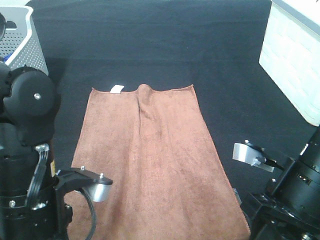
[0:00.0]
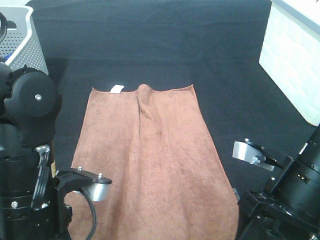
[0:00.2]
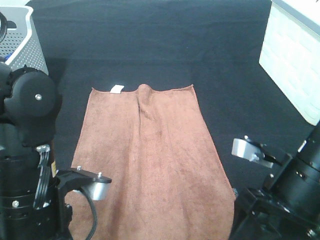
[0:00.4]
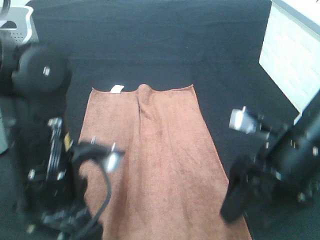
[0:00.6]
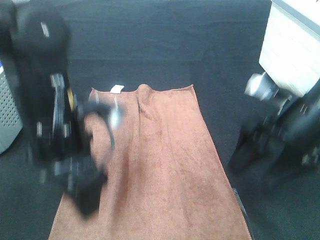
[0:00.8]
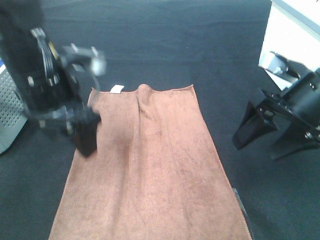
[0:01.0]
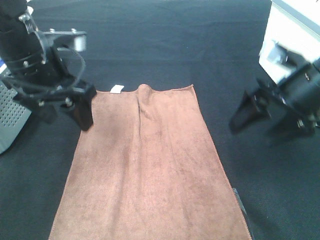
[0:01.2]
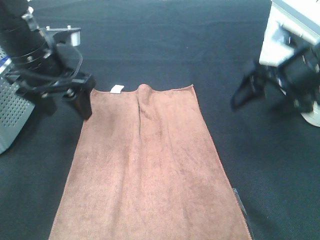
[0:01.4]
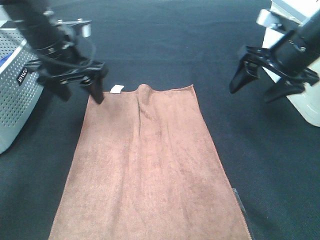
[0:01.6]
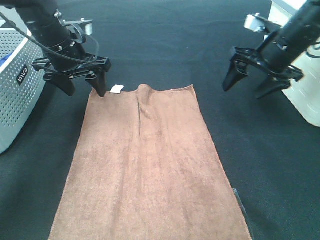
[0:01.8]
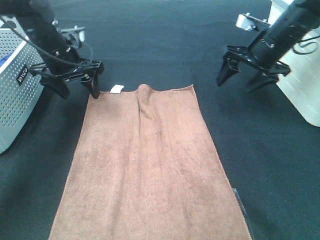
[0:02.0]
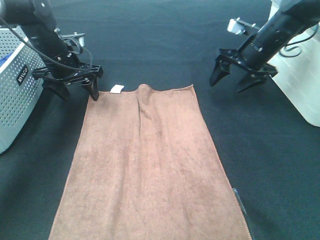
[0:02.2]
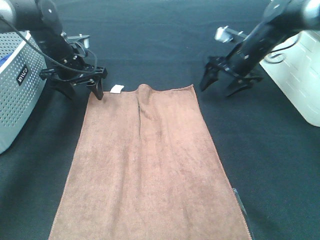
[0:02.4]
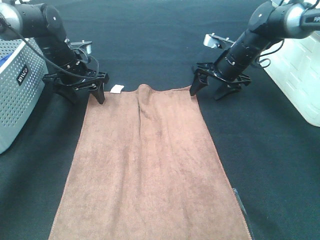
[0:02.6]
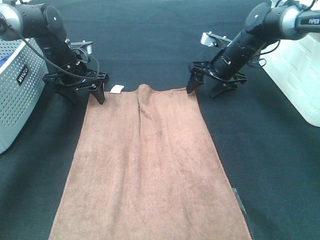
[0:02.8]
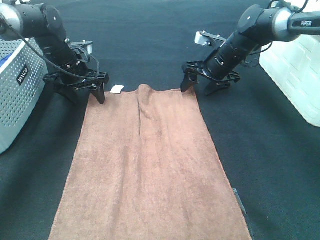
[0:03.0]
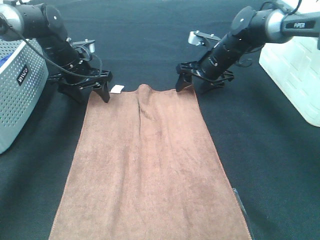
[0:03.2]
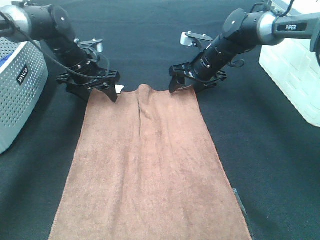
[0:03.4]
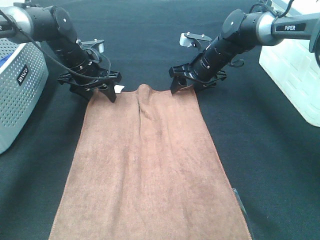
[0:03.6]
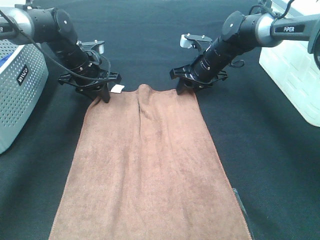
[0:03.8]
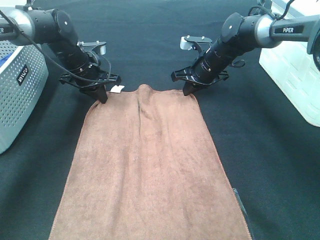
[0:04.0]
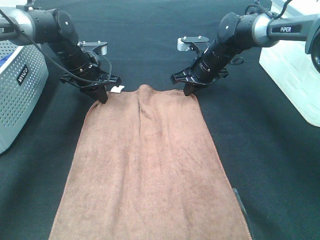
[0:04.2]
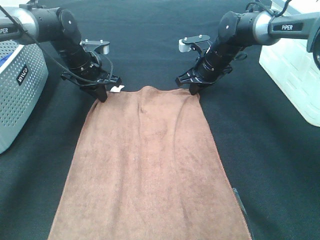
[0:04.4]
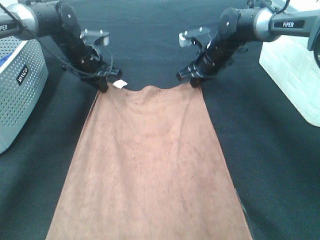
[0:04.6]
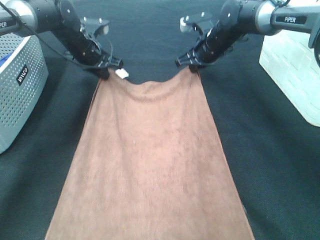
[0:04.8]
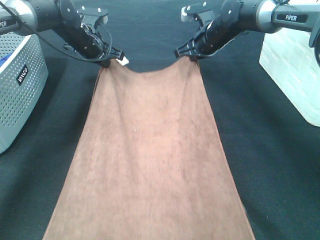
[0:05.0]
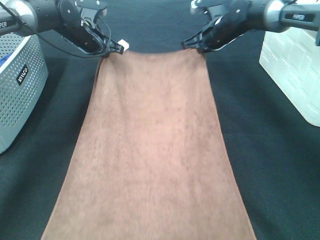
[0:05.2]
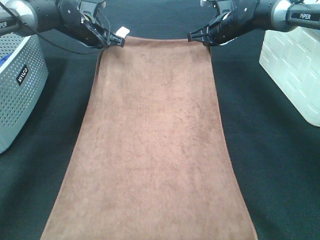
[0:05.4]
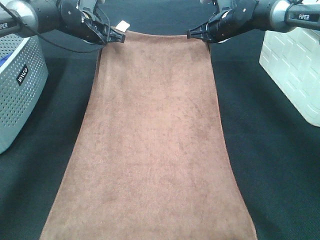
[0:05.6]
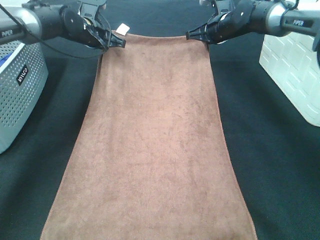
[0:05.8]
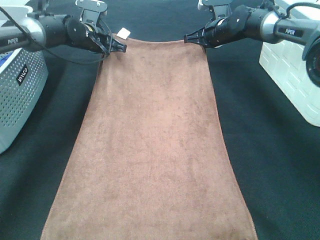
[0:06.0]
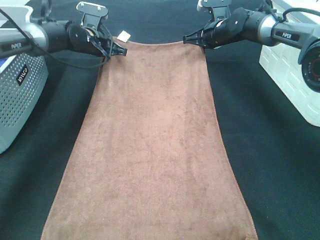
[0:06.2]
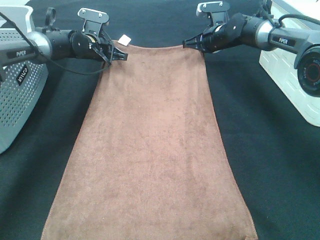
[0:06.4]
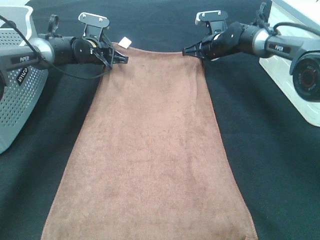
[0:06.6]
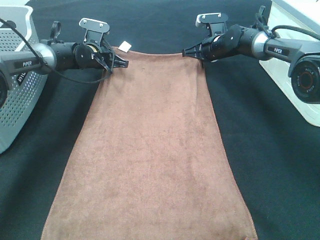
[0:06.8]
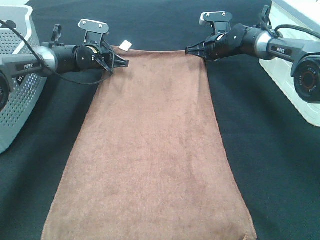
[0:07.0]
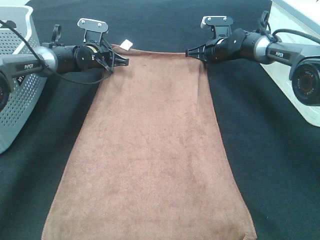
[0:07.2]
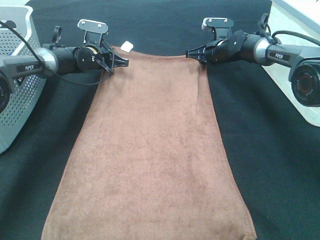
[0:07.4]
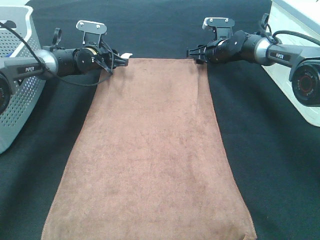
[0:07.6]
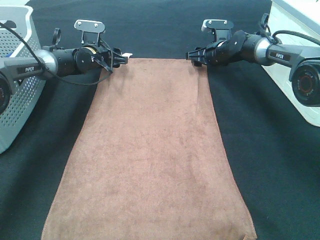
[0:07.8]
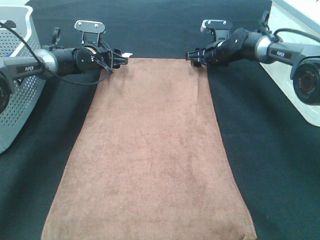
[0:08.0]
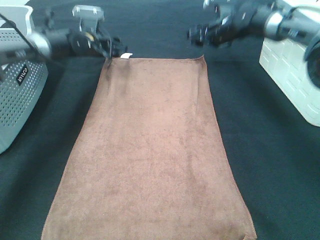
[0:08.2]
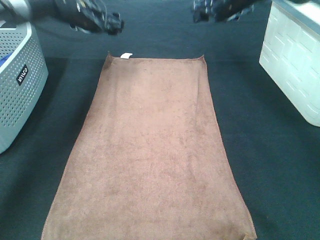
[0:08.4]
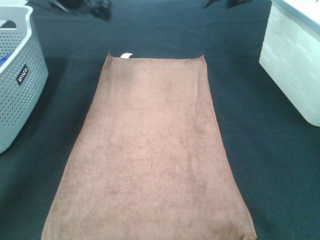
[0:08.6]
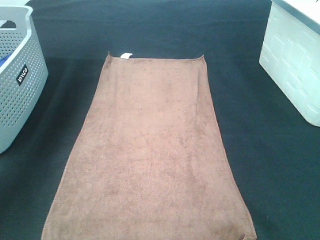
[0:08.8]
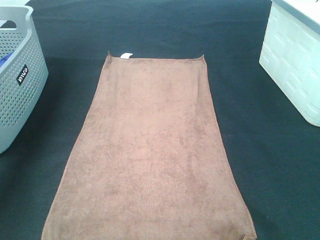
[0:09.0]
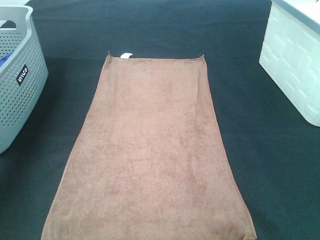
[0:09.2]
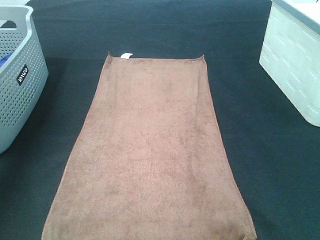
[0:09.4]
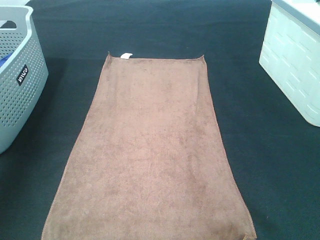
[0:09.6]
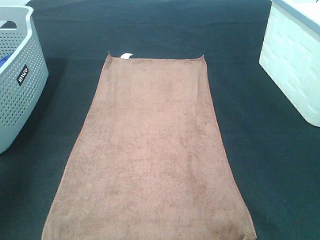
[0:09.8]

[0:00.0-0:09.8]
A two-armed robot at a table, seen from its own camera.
Task of the whole recording: Remove the towel and place it.
Step, 0:00.0 to 0:02.4: Left hand:adjust the brown towel.
Step, 0:00.0 to 0:02.4: Right hand:adjust the brown towel.
0:00.0 to 0:01.4: The right gripper moves forward and upward, approximately 15 cm, and opens its fingers, while the left gripper shifts approximately 20 cm forward, and opens up.
0:01.4 to 0:02.8: The grippers both shift forward and downward by about 20 cm.
0:02.8 to 0:04.2: The right gripper closes. The left gripper closes.
0:04.2 to 0:05.6: The left gripper moves forward and upward, some 10 cm. The right gripper goes some 10 cm upward and forward.
0:05.6 to 0:07.0: The two grippers go some 10 cm downward.
0:07.0 to 0:08.4: Both grippers move upward, roughly 15 cm. The left gripper opens up; the right gripper opens up.
0:08.4 to 0:09.8: The left gripper moves backward and upward, about 40 cm. Meanwhile the right gripper shifts approximately 40 cm backward.

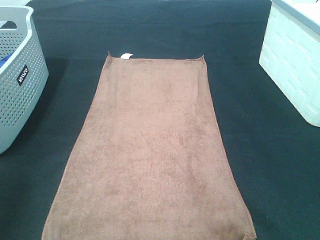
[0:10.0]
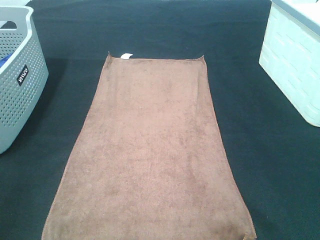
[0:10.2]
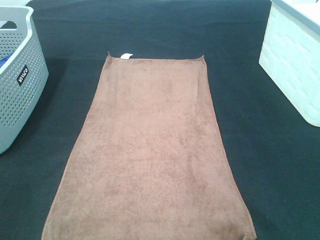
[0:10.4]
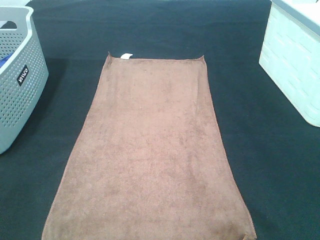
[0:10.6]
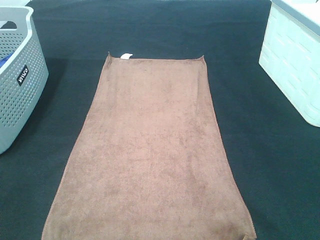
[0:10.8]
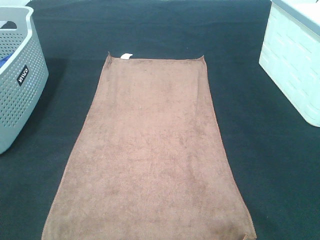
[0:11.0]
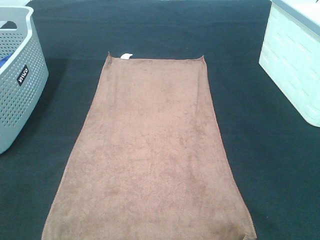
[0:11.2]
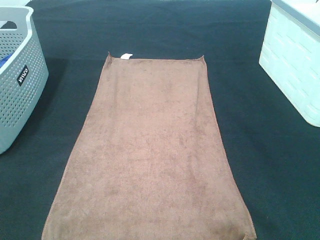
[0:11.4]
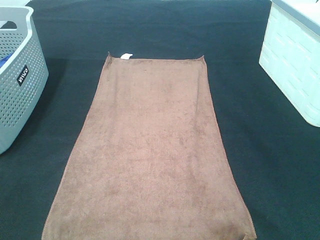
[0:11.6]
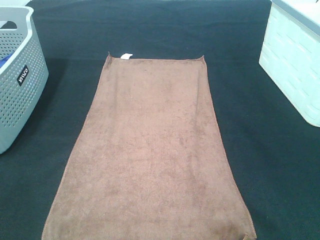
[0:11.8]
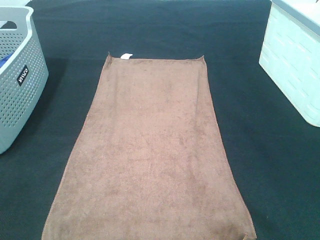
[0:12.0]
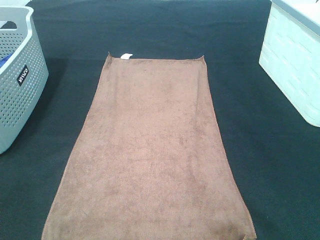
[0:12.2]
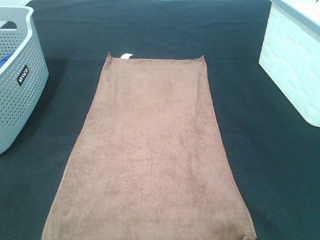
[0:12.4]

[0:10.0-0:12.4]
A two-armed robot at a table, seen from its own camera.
Task of the whole recording: Remove the towel and place it.
0:11.2 to 0:12.4: The two grippers keep their place.

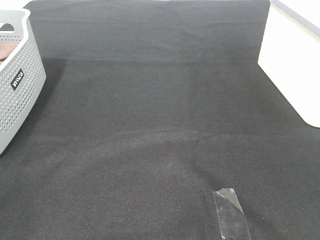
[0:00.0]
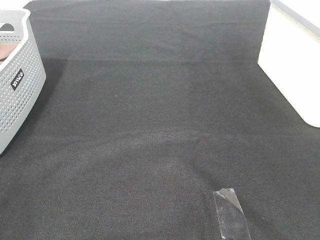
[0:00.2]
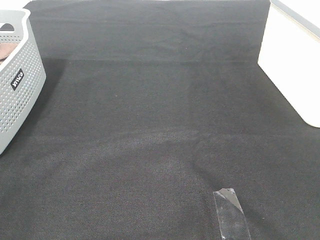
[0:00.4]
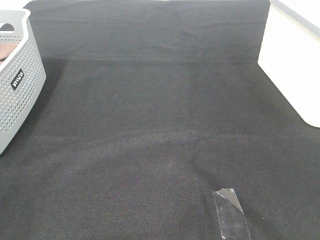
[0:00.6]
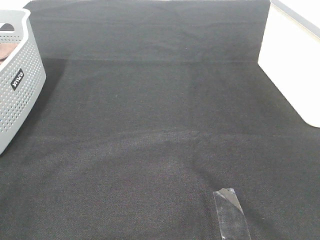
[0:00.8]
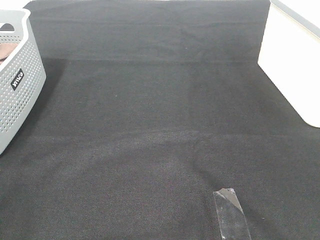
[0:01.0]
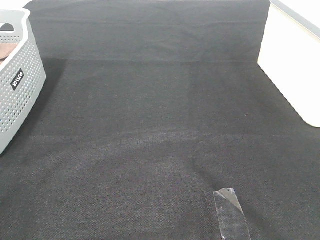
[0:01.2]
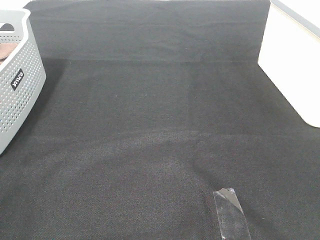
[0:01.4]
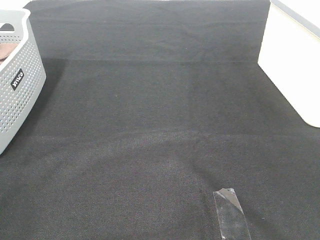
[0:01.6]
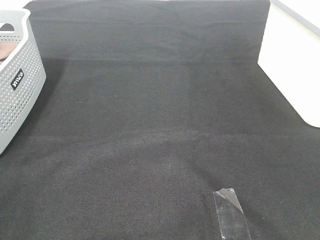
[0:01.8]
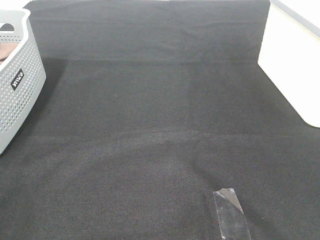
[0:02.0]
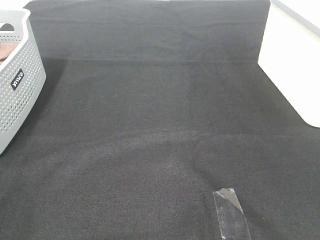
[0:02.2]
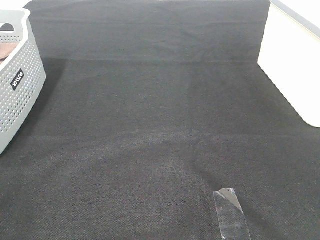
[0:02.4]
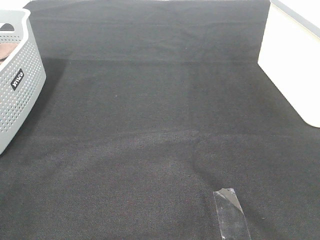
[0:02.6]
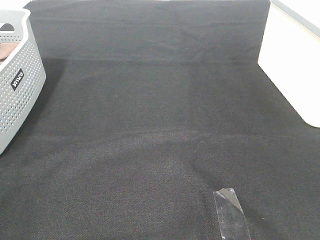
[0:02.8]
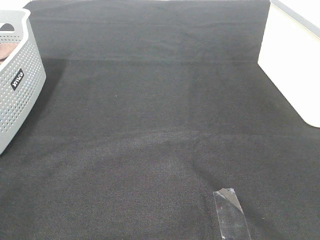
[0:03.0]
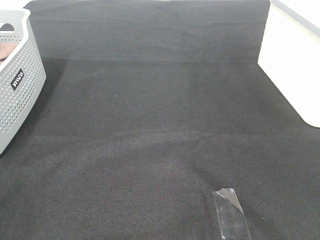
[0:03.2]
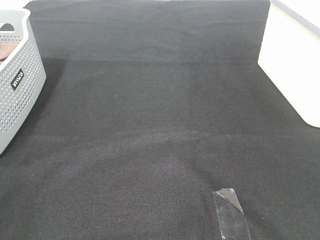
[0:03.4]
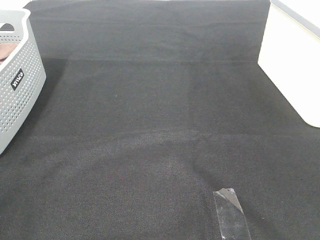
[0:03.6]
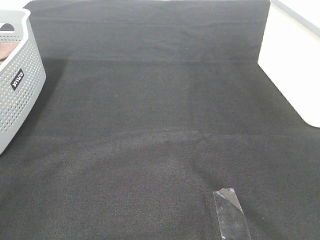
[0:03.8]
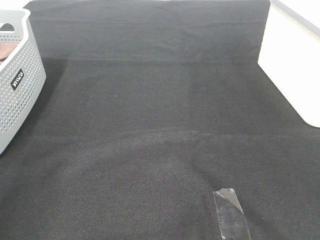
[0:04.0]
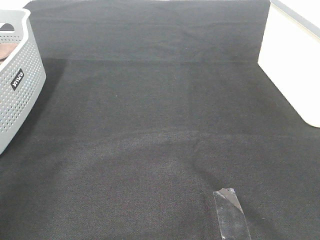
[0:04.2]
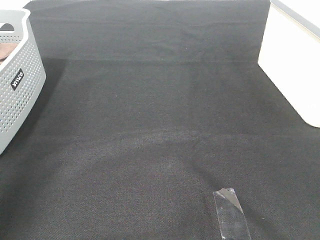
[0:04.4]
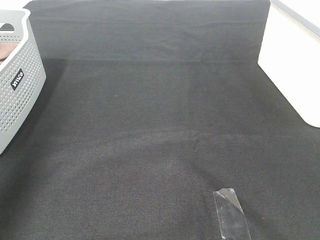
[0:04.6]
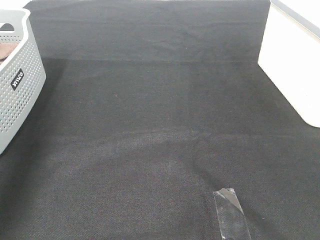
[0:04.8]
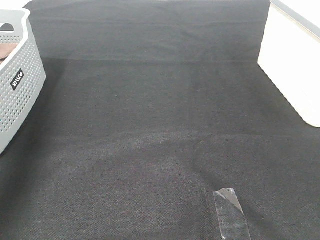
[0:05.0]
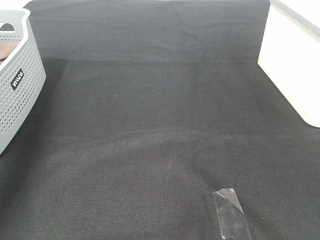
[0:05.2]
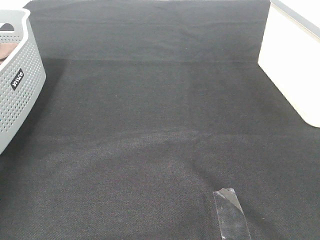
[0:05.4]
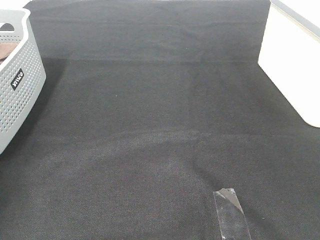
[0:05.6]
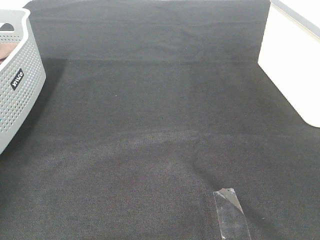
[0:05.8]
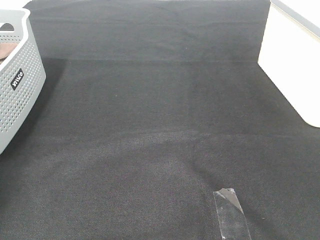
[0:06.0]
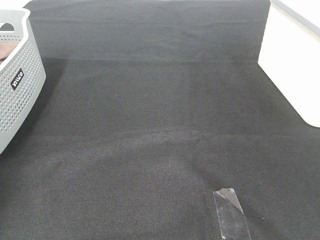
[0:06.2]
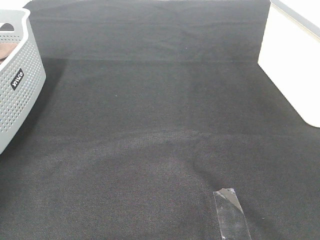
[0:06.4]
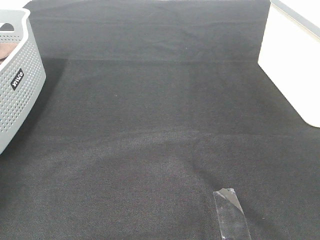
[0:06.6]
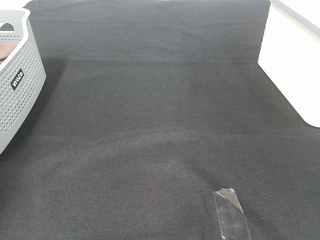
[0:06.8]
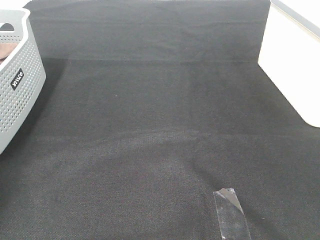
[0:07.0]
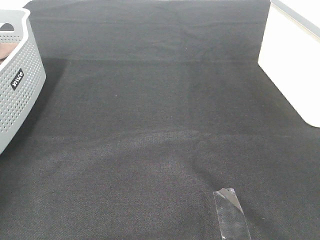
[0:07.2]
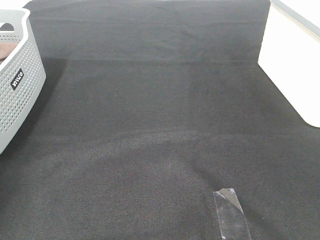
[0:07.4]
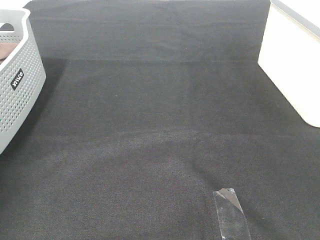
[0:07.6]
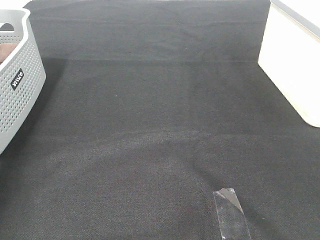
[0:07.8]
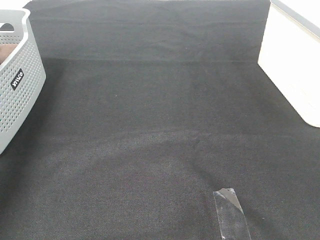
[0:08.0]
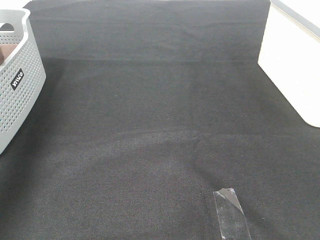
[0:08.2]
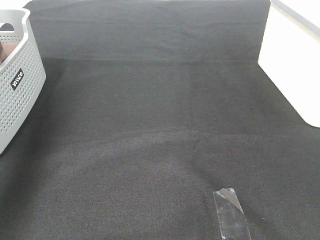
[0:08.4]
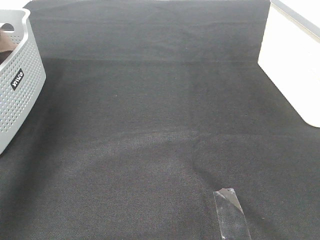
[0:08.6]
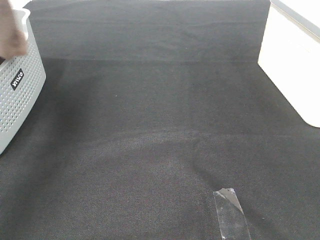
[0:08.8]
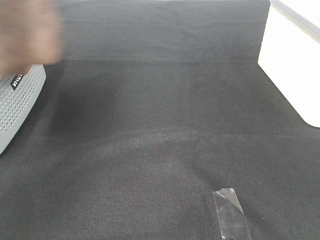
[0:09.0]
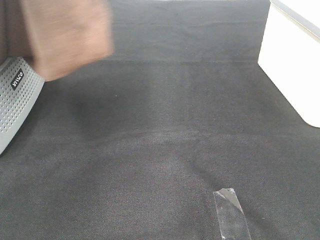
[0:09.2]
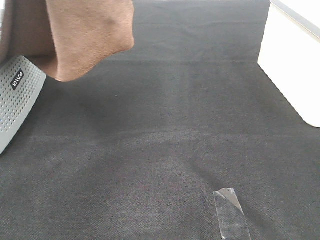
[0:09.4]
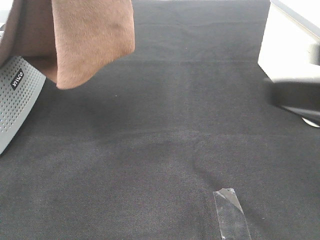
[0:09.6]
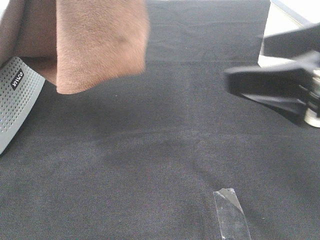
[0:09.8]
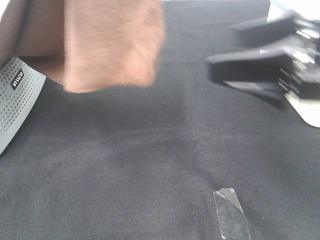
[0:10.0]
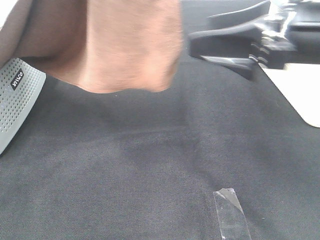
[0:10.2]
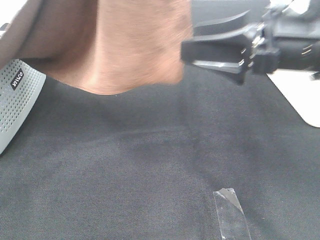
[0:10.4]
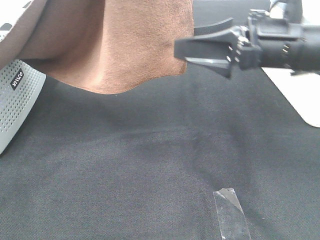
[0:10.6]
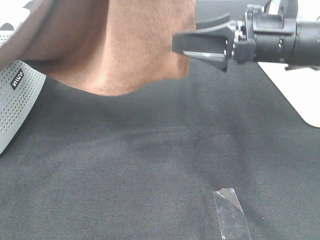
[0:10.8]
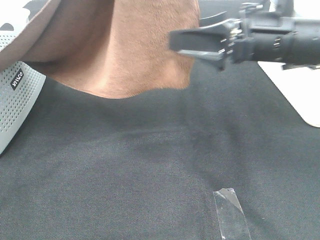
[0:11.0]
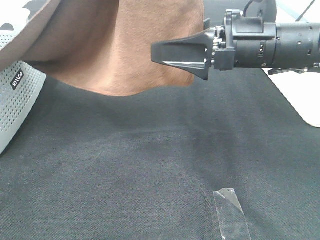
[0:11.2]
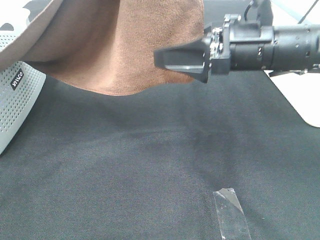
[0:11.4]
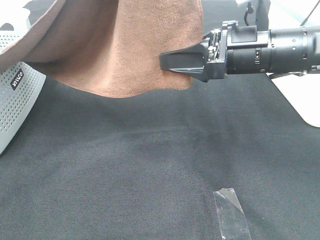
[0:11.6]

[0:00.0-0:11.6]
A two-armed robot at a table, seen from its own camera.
Task of the whole recording: Remove the towel and place it.
0:00.0 to 0:02.8: The two grippers keep their place.
0:02.8 to 0:04.4: The left gripper heads forward and upward, covering roughly 20 cm.
0:04.4 to 0:05.8: The left gripper shifts some 35 cm forward, downward and to the left.
0:07.2 to 0:08.8: The left gripper travels upward, to the right and backward by approximately 35 cm.
0:08.8 to 0:10.2: The left gripper is displaced to the right by roughly 15 cm. The right gripper travels forward and to the left by approximately 25 cm.
0:10.2 to 0:11.6: The right gripper travels forward by about 5 cm, and closes its fingers.
